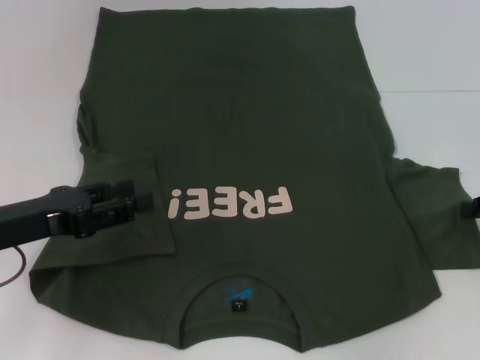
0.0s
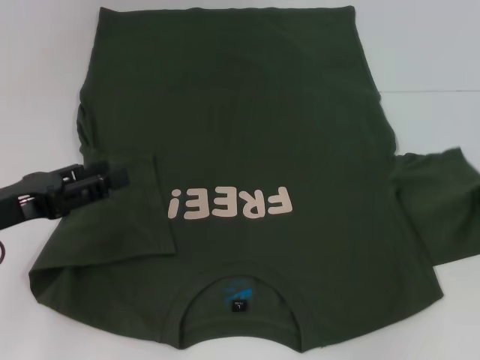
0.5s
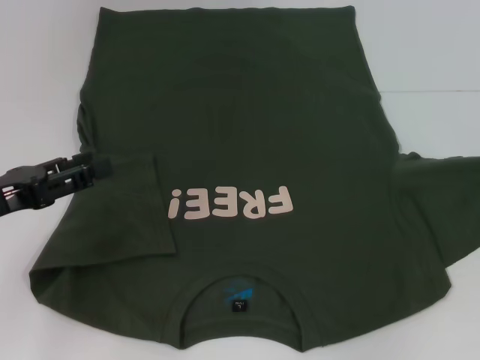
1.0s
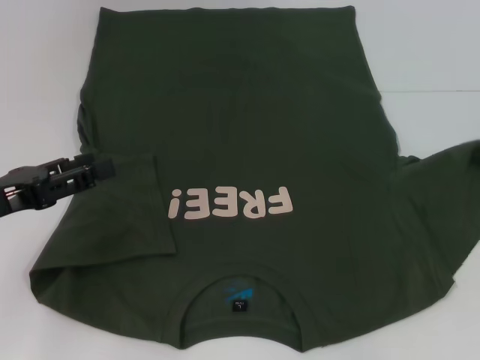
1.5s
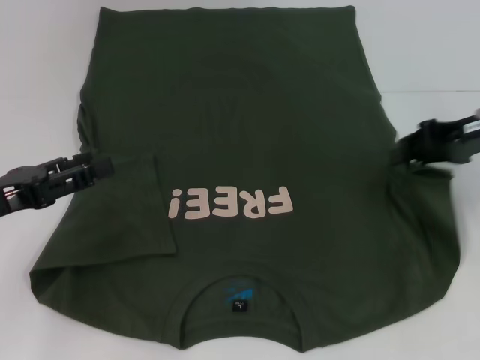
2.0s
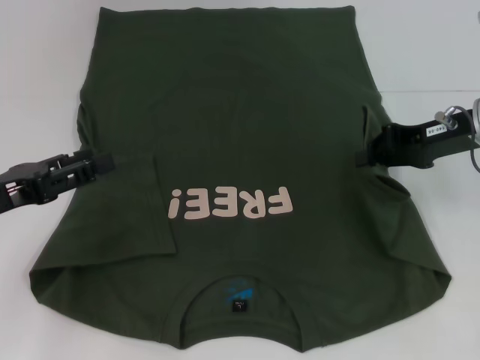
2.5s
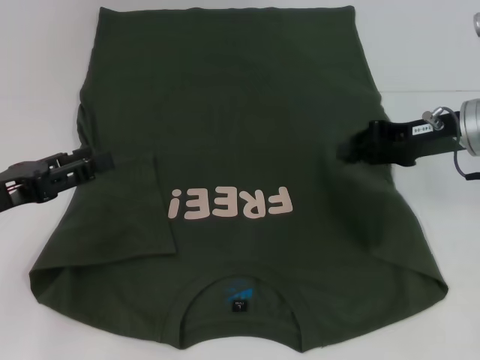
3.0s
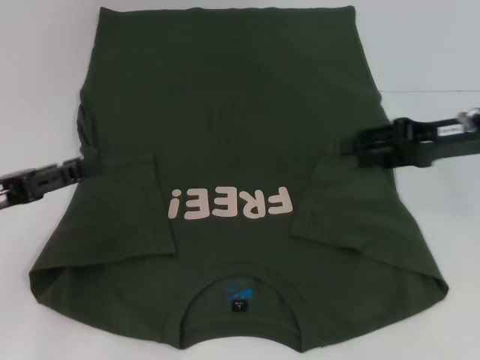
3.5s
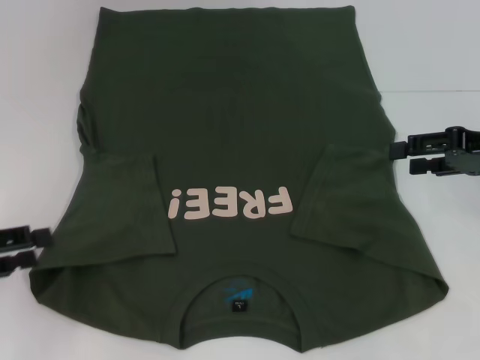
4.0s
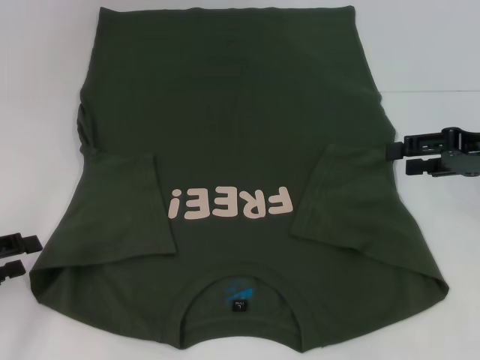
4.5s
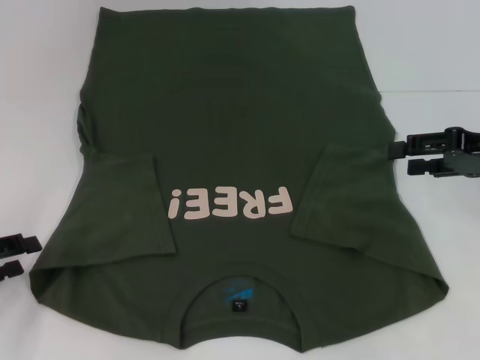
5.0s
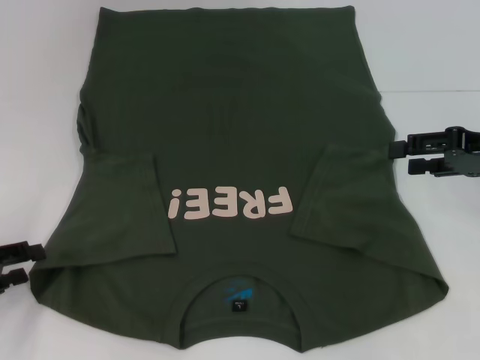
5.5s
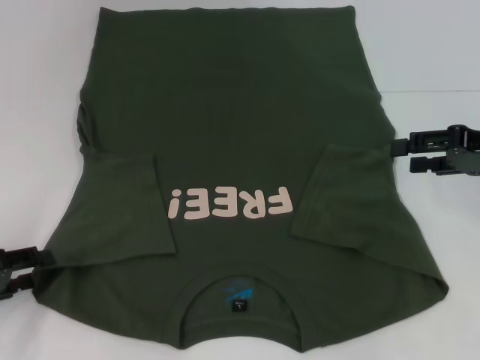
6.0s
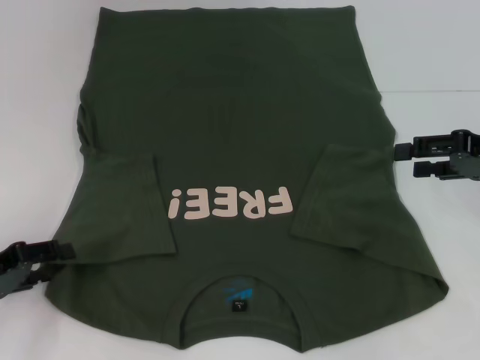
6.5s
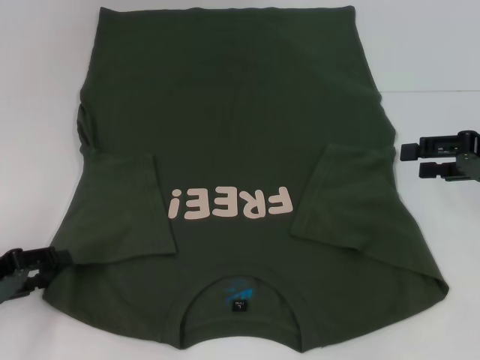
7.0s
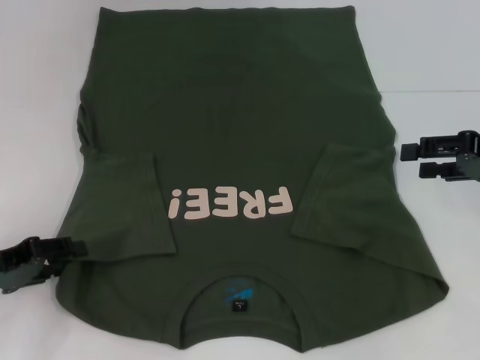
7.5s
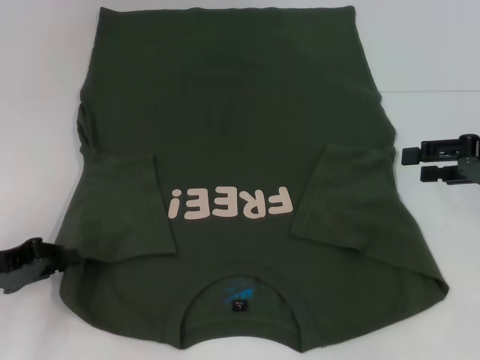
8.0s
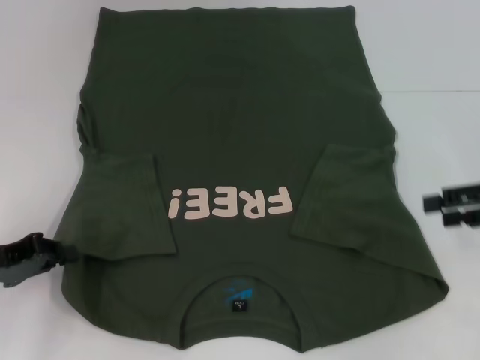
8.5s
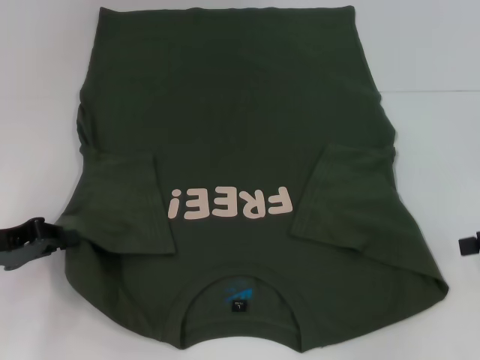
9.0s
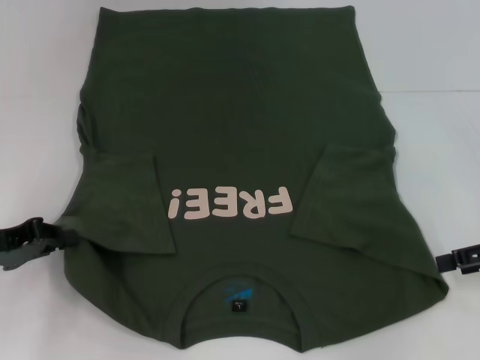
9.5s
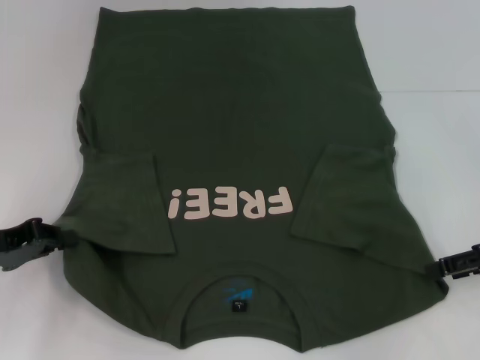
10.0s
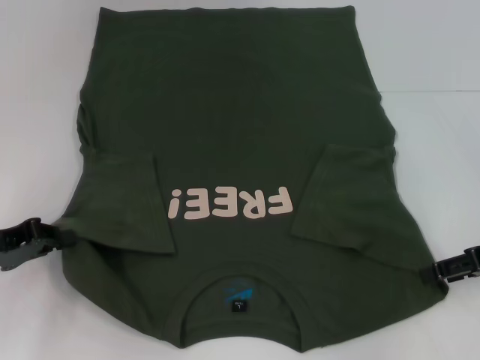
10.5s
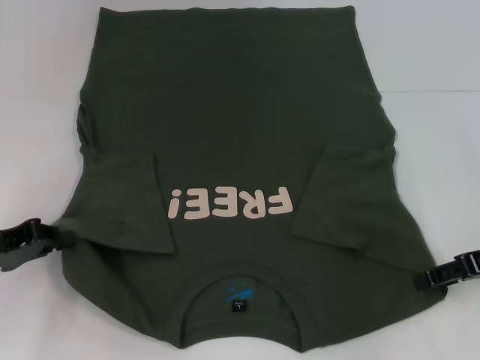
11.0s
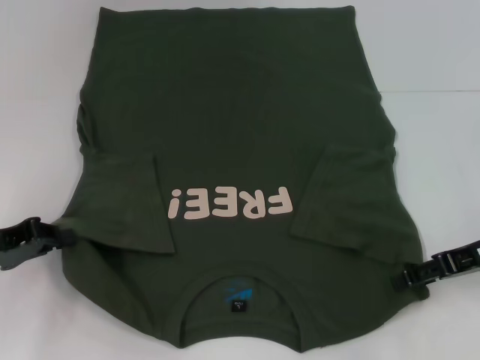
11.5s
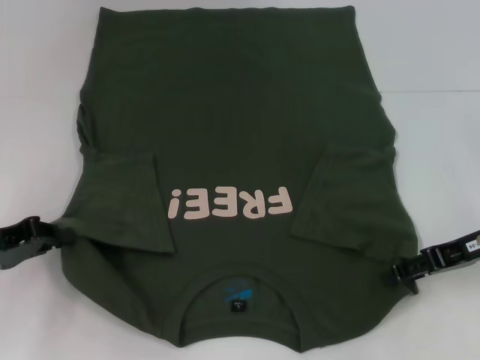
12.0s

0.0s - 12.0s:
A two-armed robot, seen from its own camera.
Step, 0.0s - 3.0s: Fold the bottom right sleeve with your right hand.
Step, 3.5s - 7.5s: Grab the bottom left corner with your left hand.
0.0s - 2.0s: The right gripper shifts some 10 cm upward, to the left and forward.
2.0s - 4.0s: The left gripper moves approximately 5 cm. Meanwhile the right gripper opens.
4.0s - 6.0s: The left gripper heads downward, covering about 5 cm.
6.0s - 8.0s: The left gripper closes.
8.0s - 10.0s: The right gripper ends up roughly 5 cm from where it was.
10.0s - 12.0s: The right gripper moves to the left, some 5 cm.

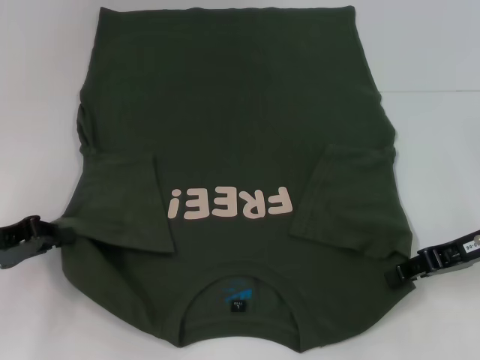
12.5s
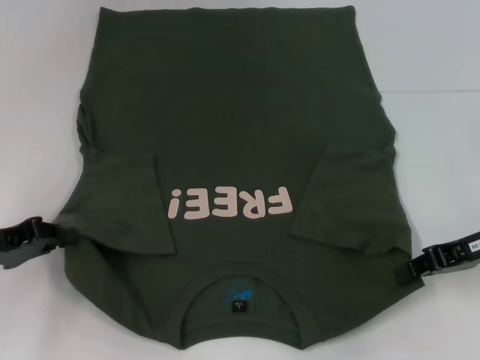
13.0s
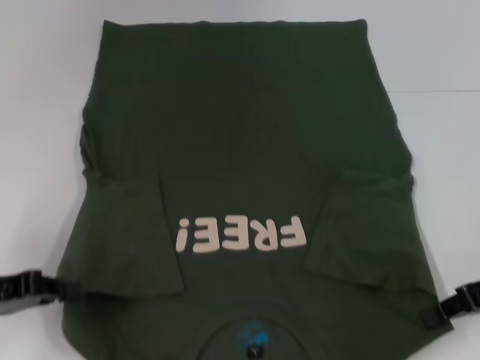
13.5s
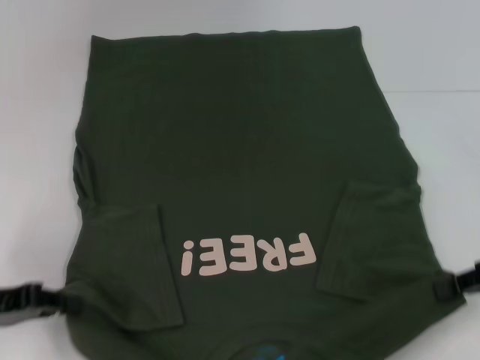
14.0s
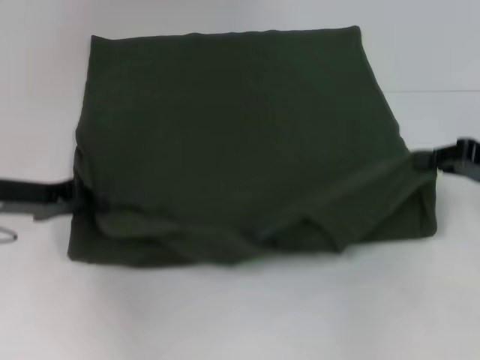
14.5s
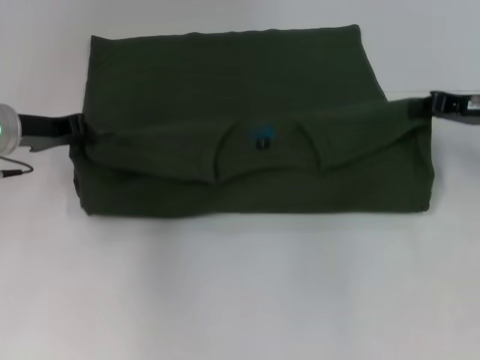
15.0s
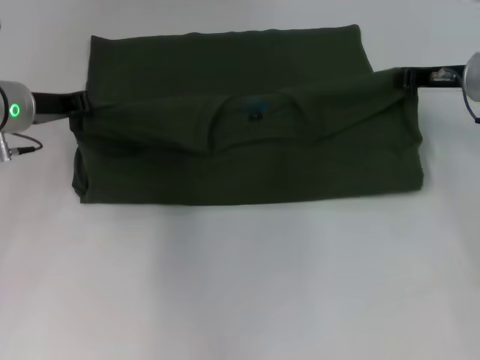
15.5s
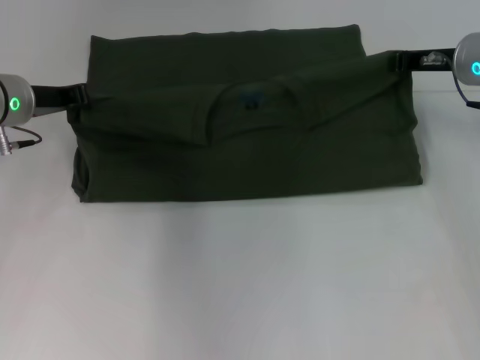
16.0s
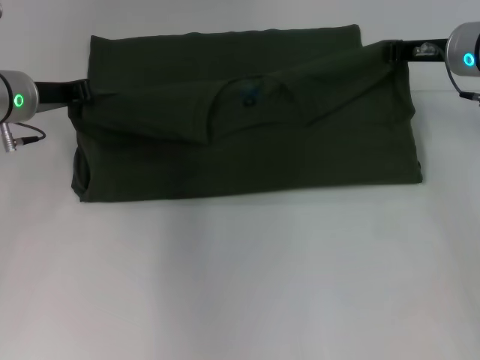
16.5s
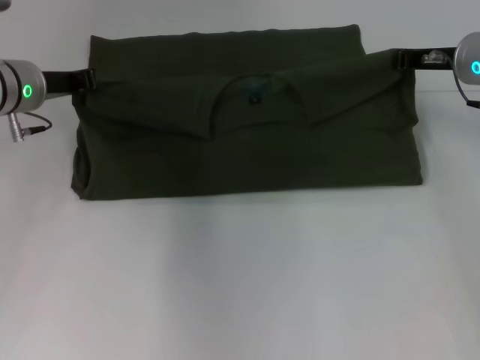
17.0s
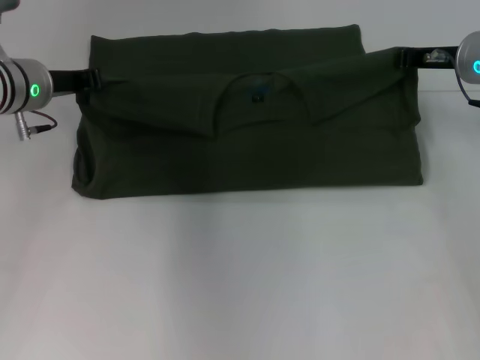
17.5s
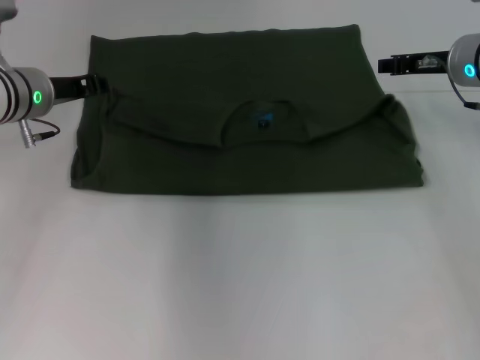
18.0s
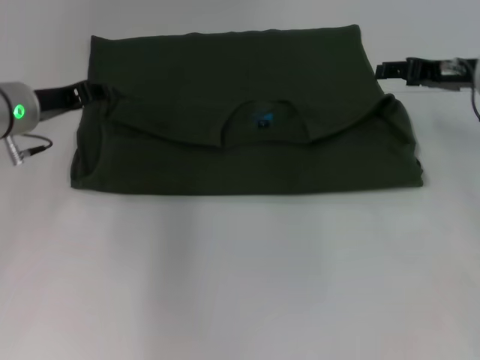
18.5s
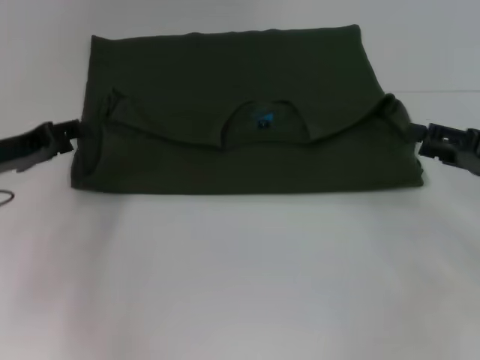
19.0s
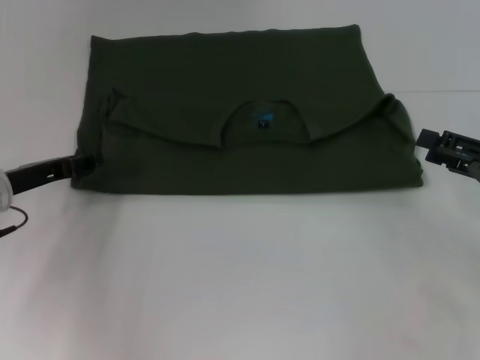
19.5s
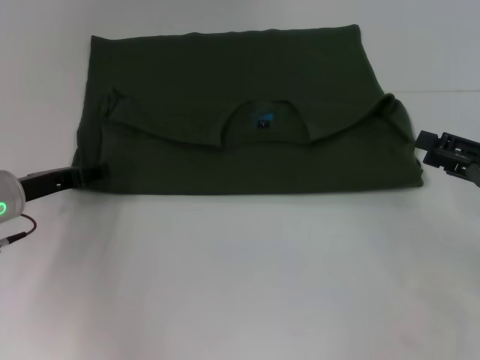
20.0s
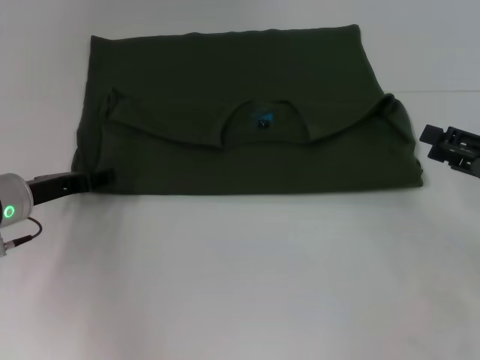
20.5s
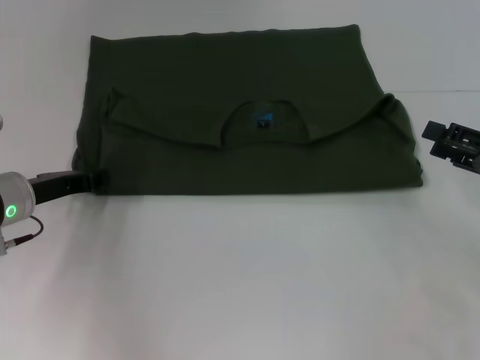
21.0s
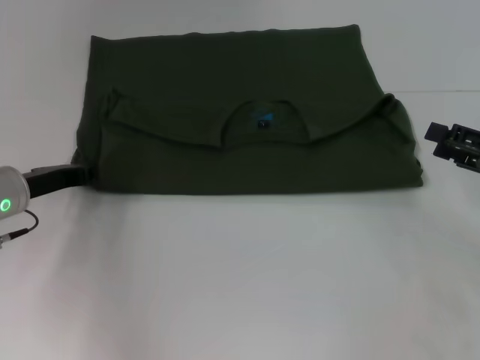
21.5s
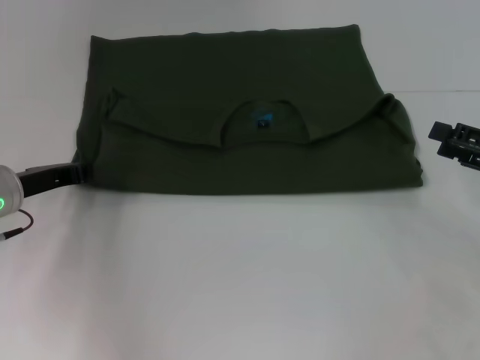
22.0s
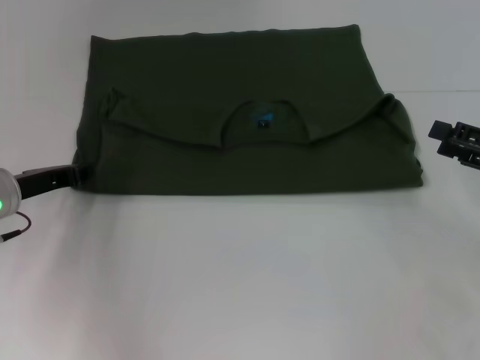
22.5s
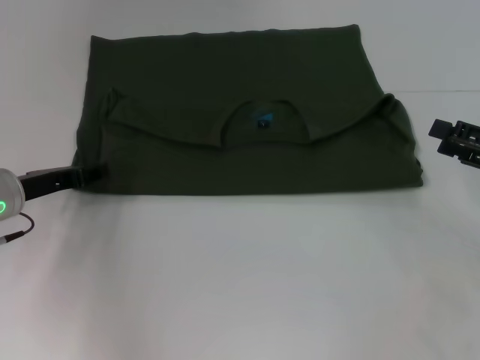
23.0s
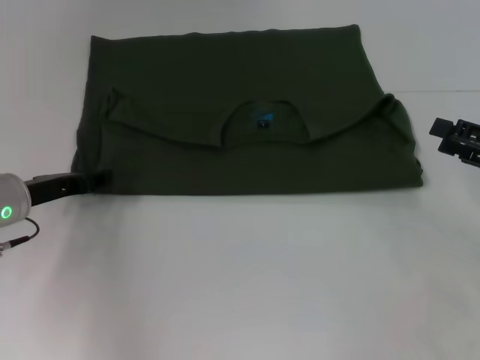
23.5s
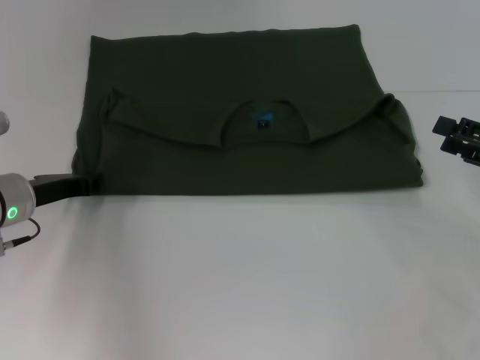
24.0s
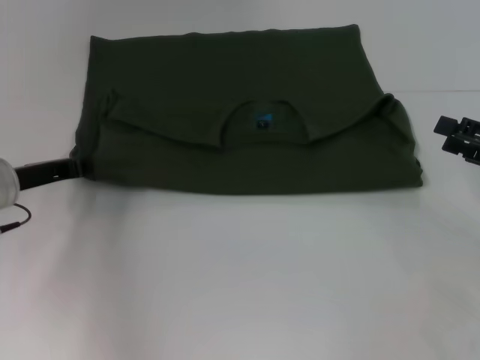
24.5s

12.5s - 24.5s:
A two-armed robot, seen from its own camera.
Step, 12.5s - 18.0s: Fold the clothes with your left hand.
Step, 12.5s - 18.0s: Fold the clothes with your right hand.
12.5s - 14.5s: The right gripper shifts by about 5 cm, and closes its fingers. The left gripper goes some 5 cm forward.
14.5s - 16.5s: The left gripper heads forward, covering some 10 cm, while the right gripper moves forward and to the left, about 15 cm.
16.5s - 18.5s: The left gripper opens its fingers; the right gripper opens up.
18.5s - 20.5s: The right gripper shifts approximately 15 cm backward and to the right. Meanwhile the left gripper goes about 10 cm downward and backward.
20.5s - 22.5s: The left gripper closes.
22.5s - 24.5s: The left gripper opens, then closes again.

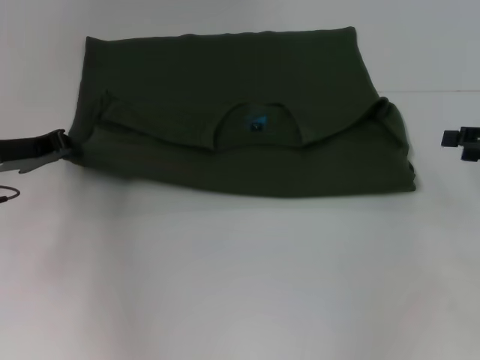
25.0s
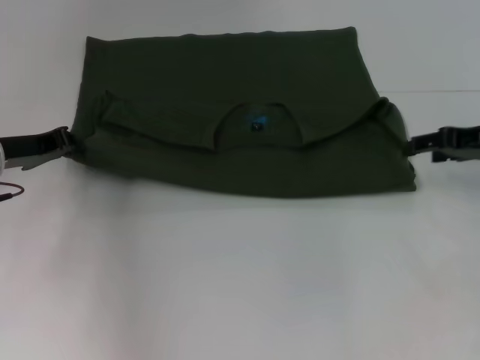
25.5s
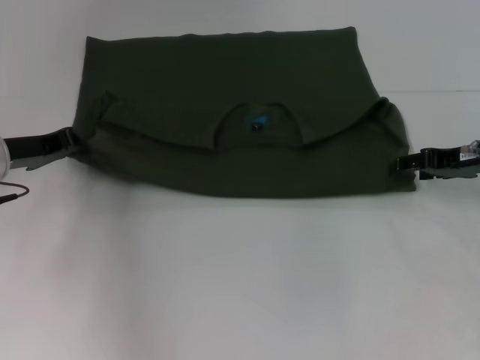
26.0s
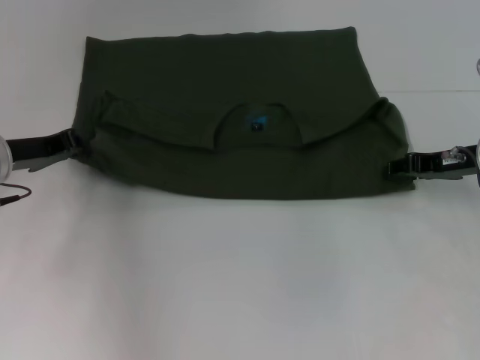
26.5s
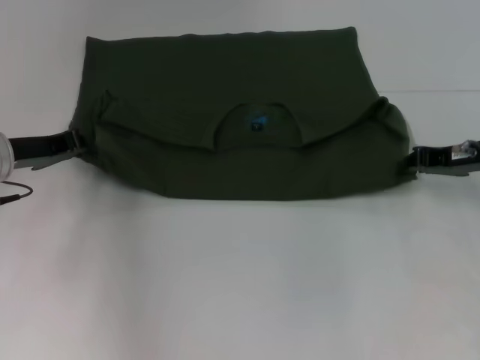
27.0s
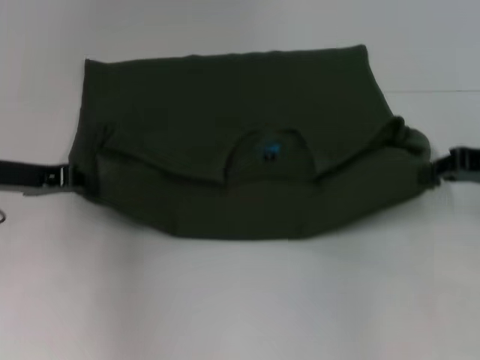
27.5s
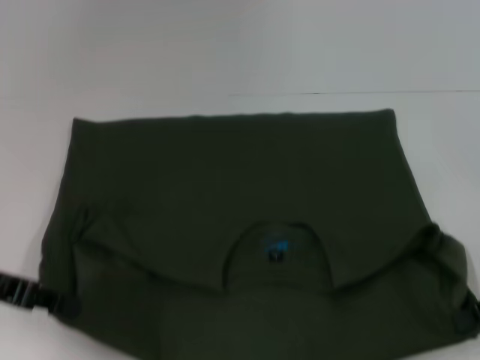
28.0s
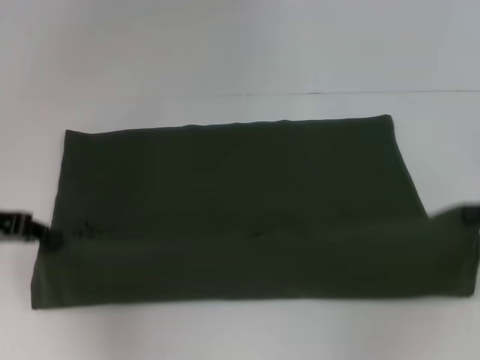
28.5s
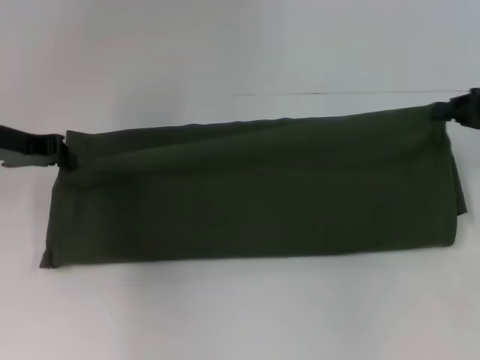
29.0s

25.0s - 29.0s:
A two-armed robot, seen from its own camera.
Step, 25.0s - 28.0s: Pull the clothes with your left hand.
Step, 25.0s - 28.0s: Pull the clothes with your right hand.
25.0s - 27.0s: The right gripper travels to the left by approximately 10 cm, and closes its fingers.
27.0s - 29.0s: The right gripper travels backward and back again, some 10 cm each way; the left gripper travels upward by some 5 cm, and moves approximately 10 cm backward and comes back.
